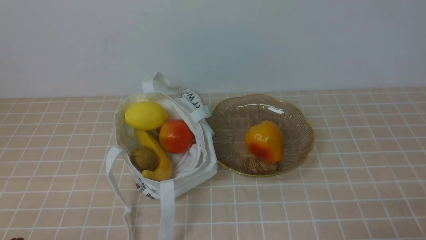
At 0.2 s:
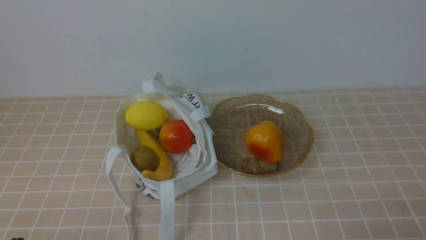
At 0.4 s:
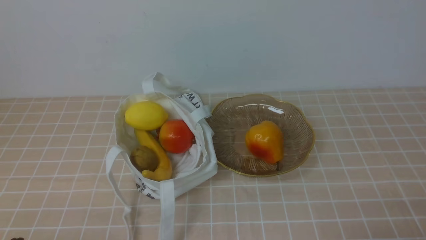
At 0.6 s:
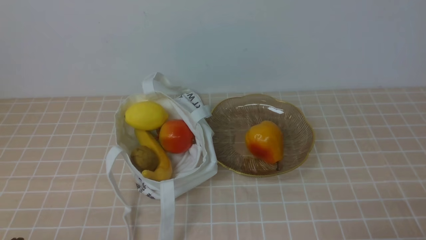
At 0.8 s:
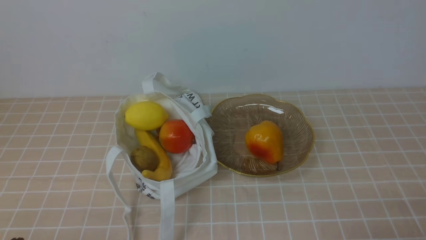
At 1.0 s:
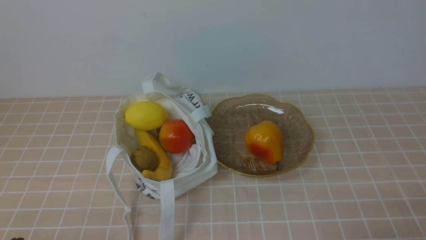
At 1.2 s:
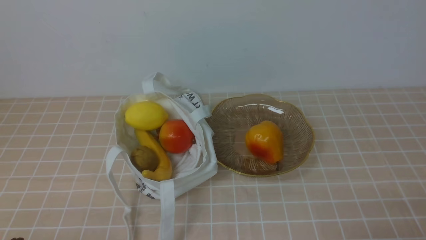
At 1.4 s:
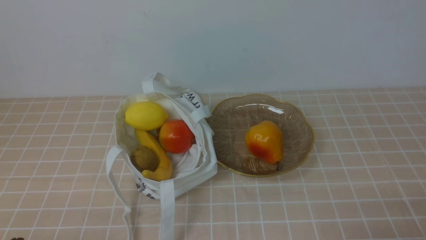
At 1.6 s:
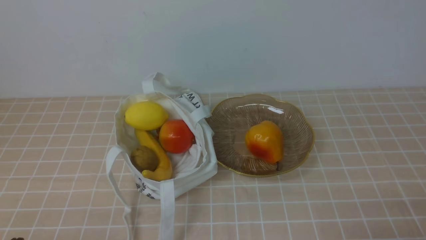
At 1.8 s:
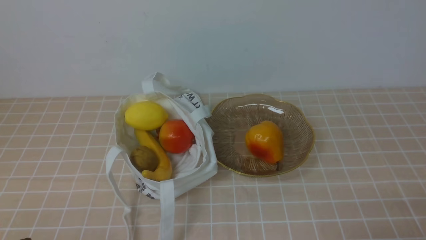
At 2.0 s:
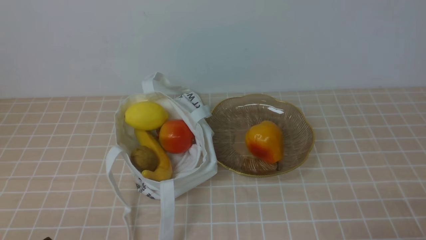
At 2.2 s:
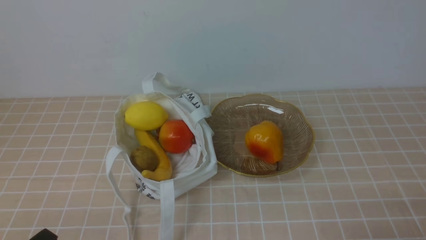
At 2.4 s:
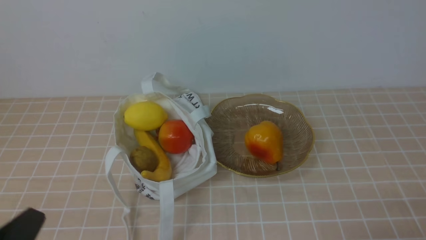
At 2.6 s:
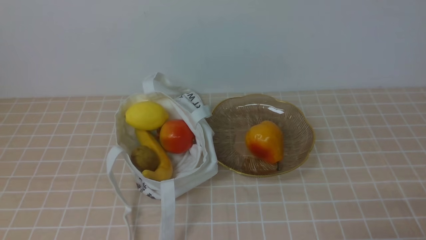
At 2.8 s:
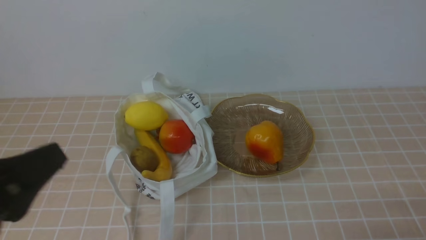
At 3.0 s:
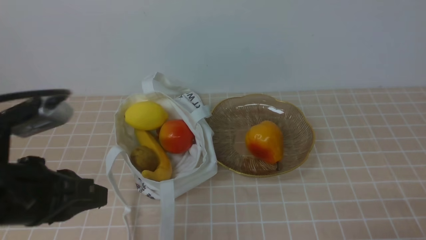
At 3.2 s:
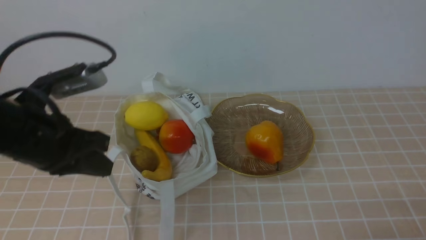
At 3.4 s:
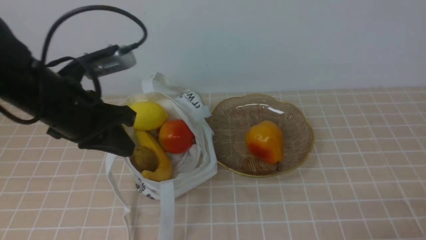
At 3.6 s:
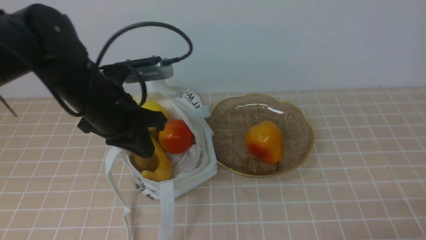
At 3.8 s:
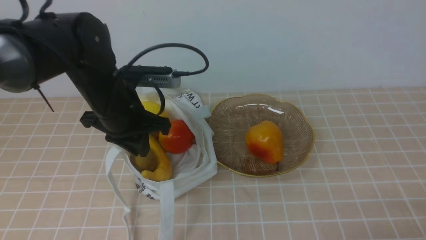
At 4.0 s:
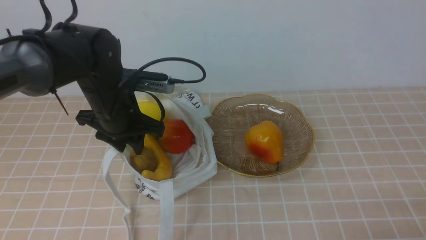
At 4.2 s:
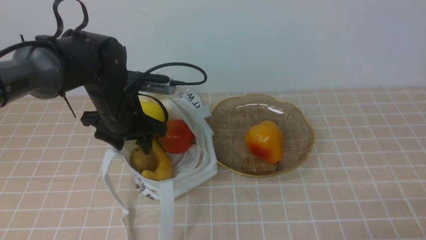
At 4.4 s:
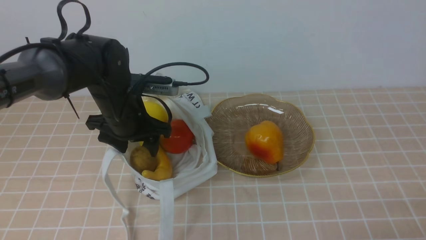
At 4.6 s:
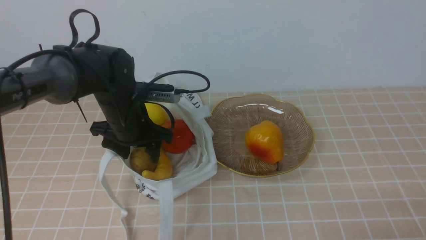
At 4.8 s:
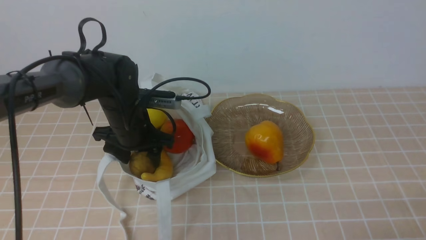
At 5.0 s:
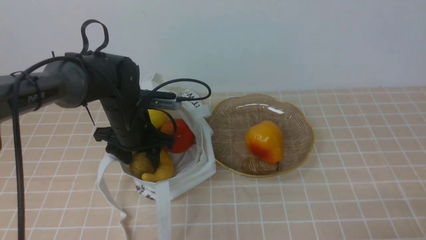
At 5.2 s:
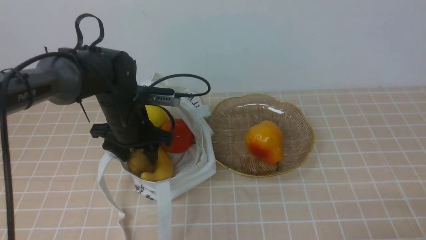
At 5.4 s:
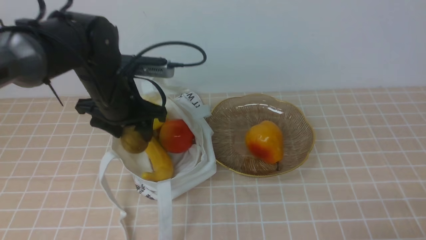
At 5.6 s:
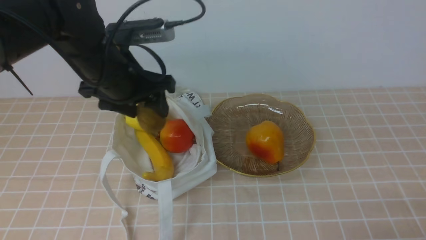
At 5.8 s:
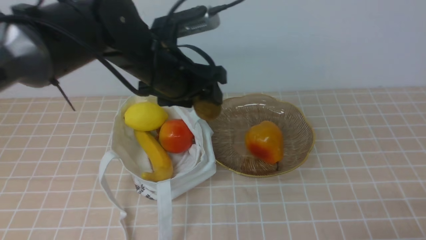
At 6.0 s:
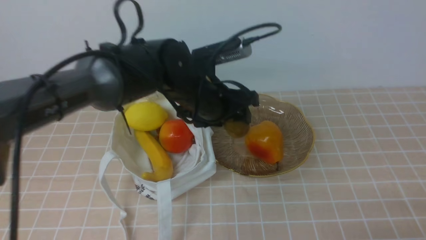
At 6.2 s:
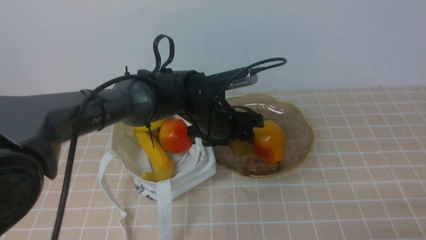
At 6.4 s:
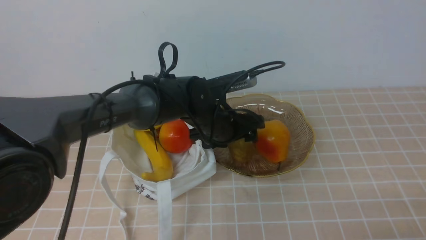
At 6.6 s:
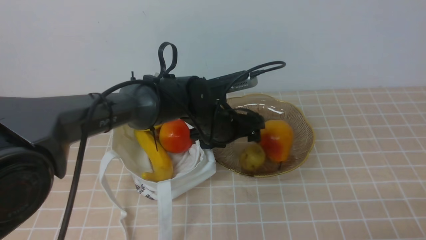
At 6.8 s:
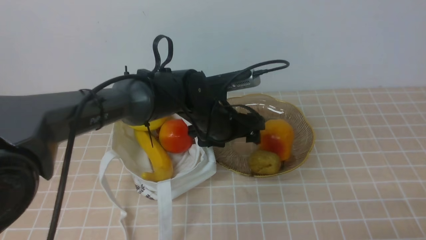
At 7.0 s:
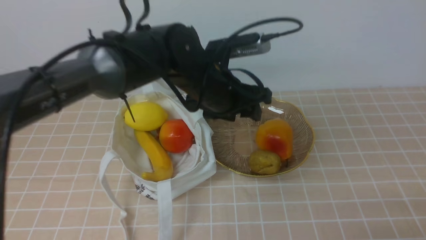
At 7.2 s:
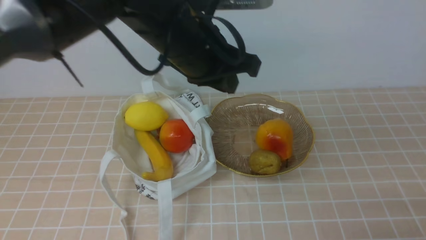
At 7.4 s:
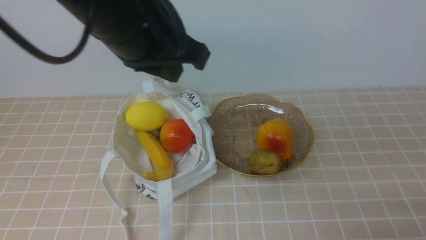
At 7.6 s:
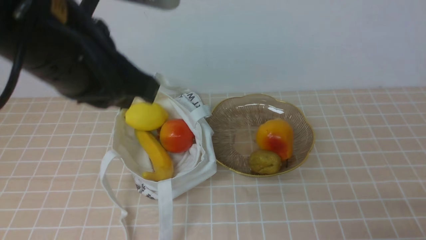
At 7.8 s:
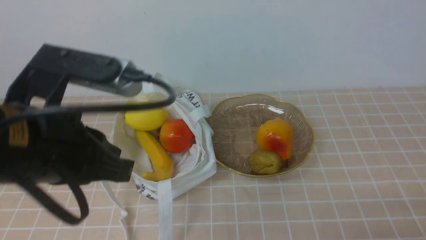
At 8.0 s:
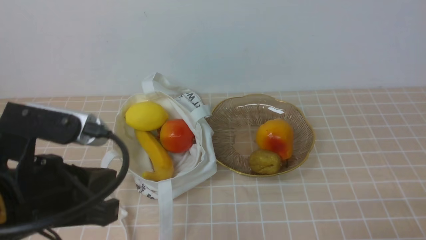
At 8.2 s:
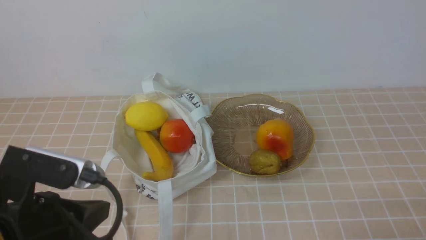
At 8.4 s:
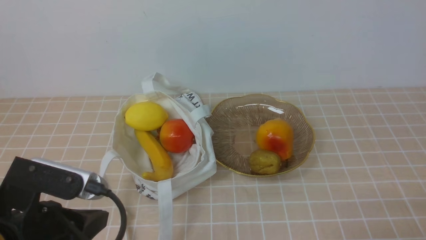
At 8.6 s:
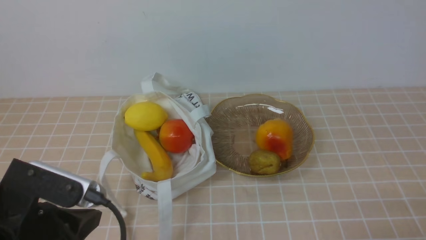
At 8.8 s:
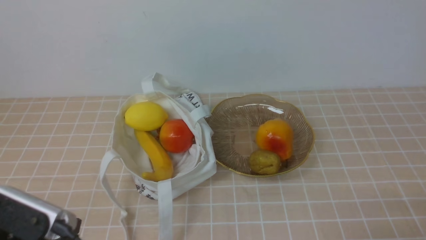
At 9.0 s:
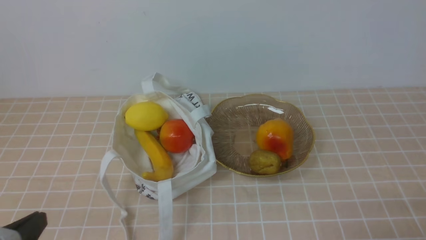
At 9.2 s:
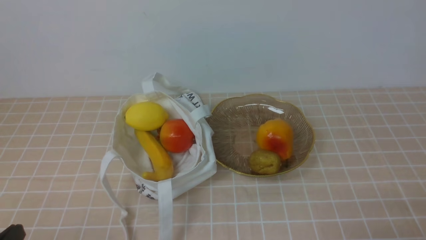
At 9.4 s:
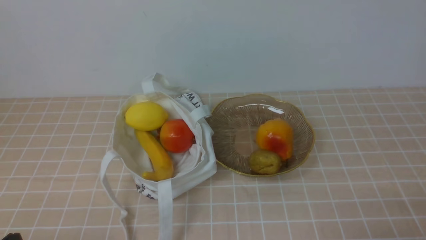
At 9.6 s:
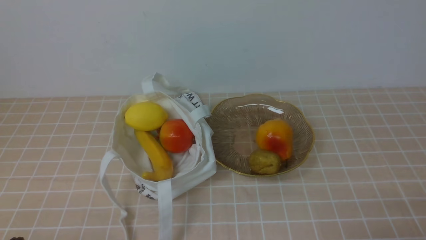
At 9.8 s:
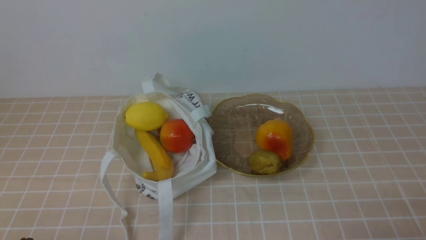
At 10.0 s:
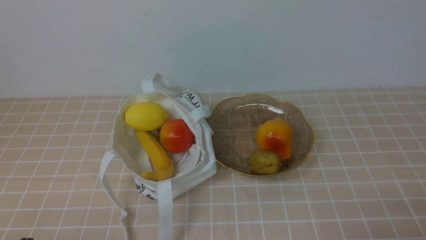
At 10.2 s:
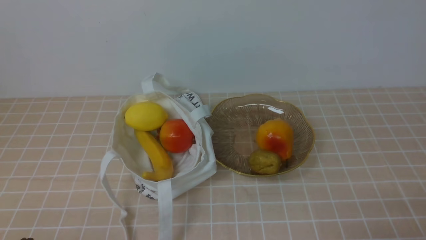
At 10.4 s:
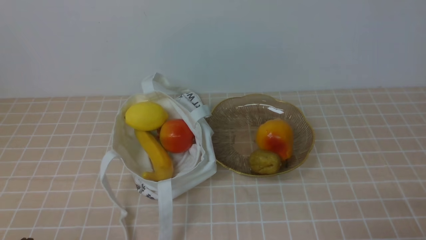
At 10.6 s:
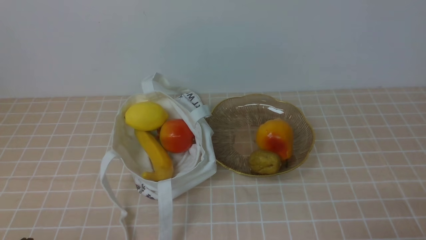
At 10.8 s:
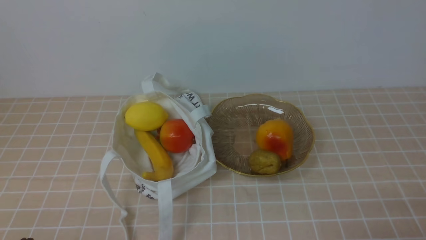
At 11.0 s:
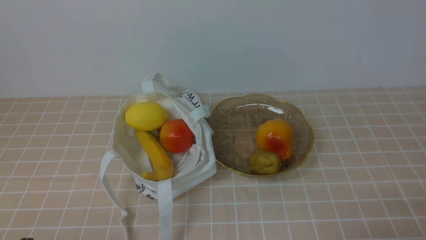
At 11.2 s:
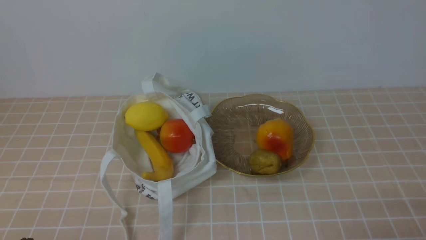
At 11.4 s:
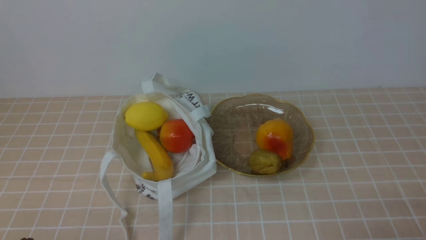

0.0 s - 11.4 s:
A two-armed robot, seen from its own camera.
Step, 0.0 s - 5.4 s: use the left arm to grab a kiwi from the bag.
Step, 5.6 s - 6.6 s: use the left arm to put the kiwi into the empty plate on the right.
1.4 s - 2.8 s: The left gripper shifts some 15 cm upward.
2.8 s - 4.2 s: The left gripper is displaced forward by some 30 cm, and opens up.
4.2 s - 5.6 s: The left gripper goes about 5 cm upward.
5.6 s - 7.2 s: The left gripper is displaced to the right by approximately 10 cm, goes downward and returns, some 10 cm each way, and closes up.
7.2 s - 8.6 s: The left gripper travels backward and to the left by about 25 cm, and closes.
8.6 s - 10.0 s: The left gripper goes approximately 10 cm downward, backward and to the left.
10.0 s - 11.4 s: Both grippers stay put.
